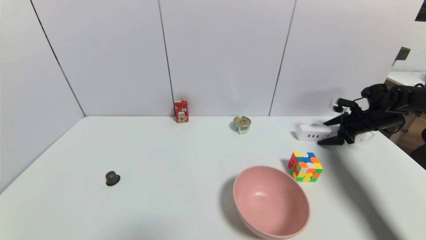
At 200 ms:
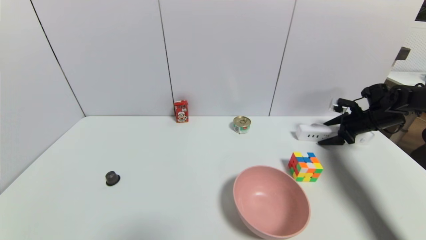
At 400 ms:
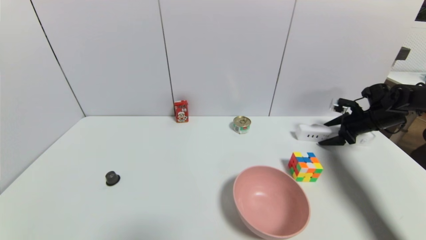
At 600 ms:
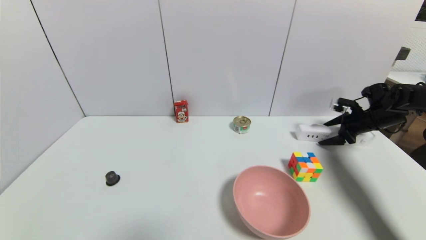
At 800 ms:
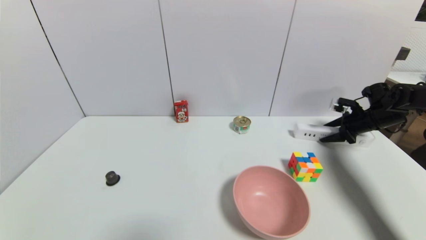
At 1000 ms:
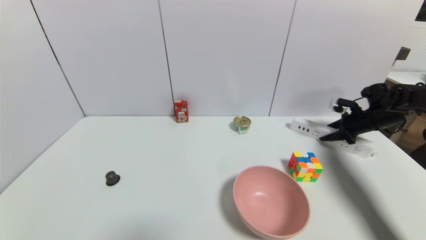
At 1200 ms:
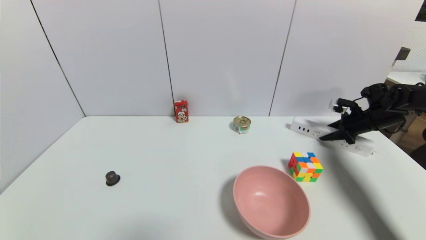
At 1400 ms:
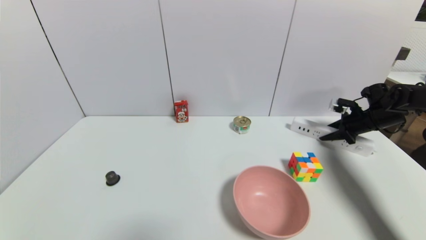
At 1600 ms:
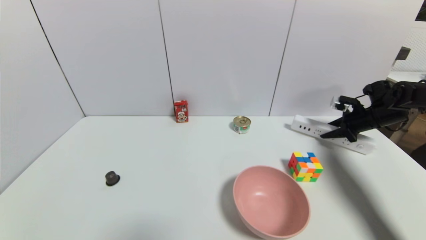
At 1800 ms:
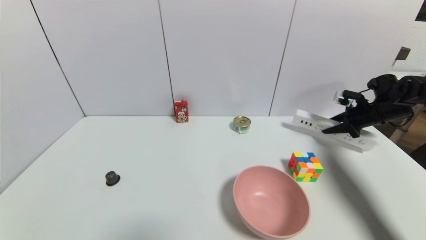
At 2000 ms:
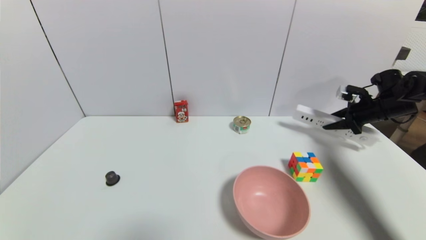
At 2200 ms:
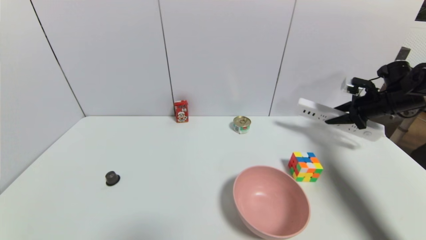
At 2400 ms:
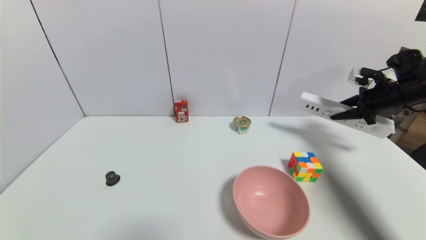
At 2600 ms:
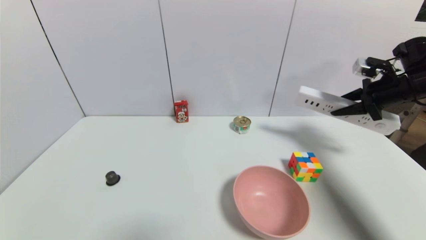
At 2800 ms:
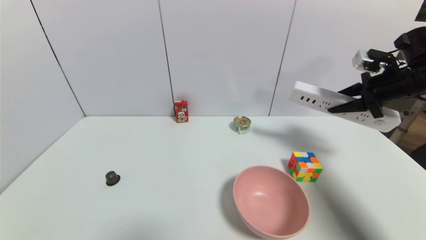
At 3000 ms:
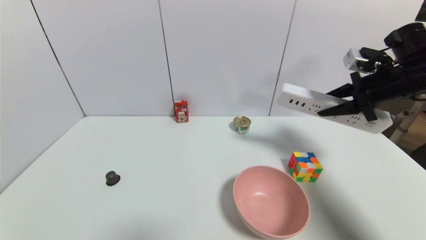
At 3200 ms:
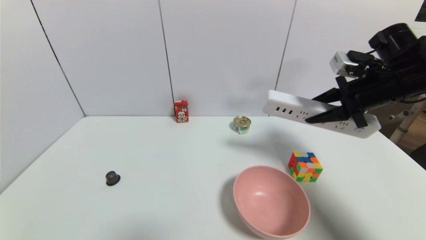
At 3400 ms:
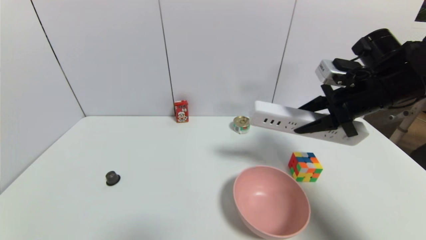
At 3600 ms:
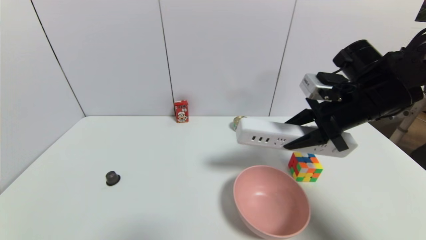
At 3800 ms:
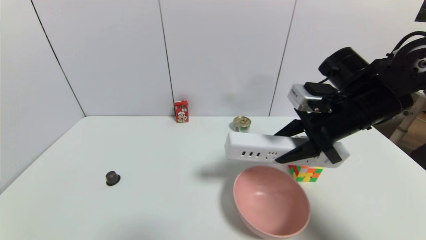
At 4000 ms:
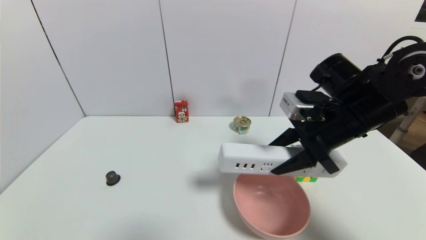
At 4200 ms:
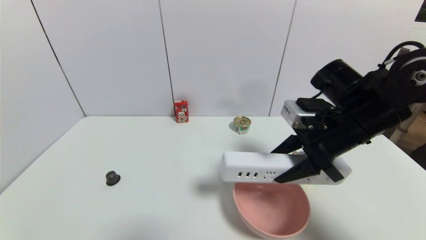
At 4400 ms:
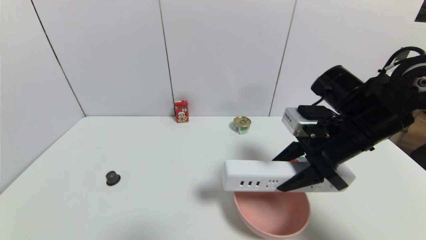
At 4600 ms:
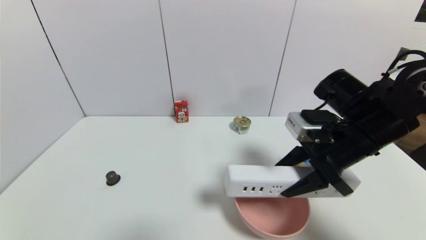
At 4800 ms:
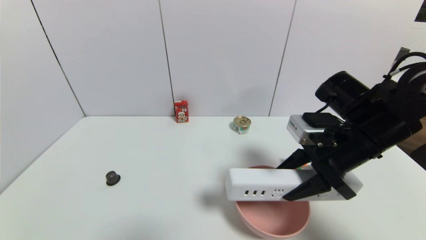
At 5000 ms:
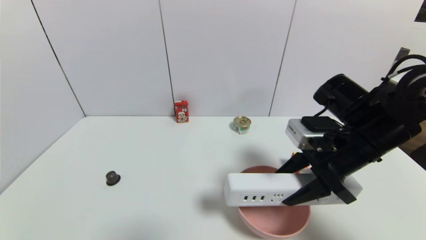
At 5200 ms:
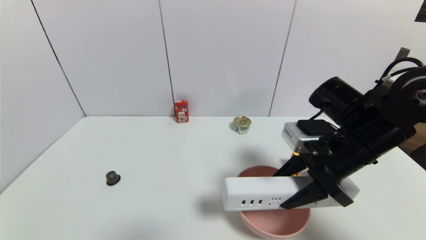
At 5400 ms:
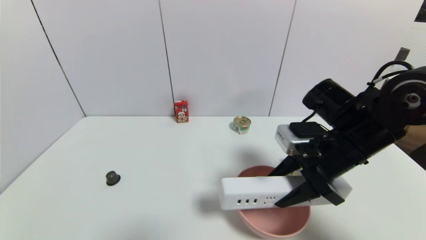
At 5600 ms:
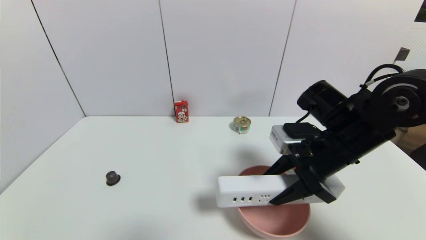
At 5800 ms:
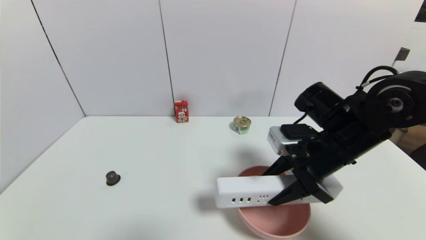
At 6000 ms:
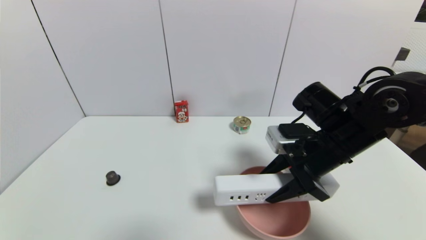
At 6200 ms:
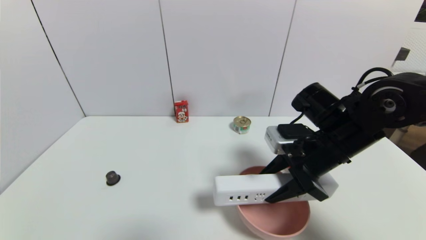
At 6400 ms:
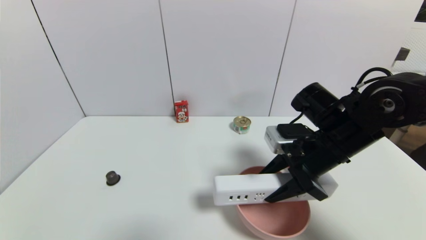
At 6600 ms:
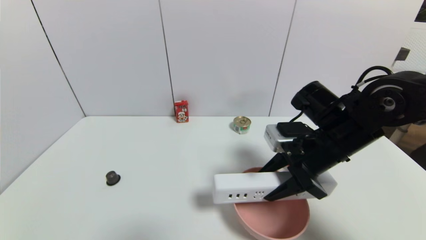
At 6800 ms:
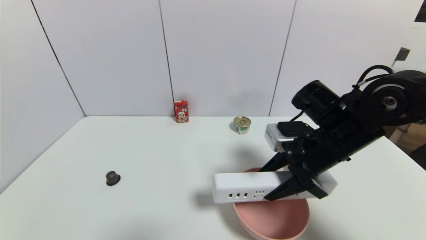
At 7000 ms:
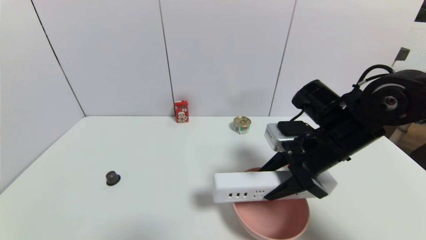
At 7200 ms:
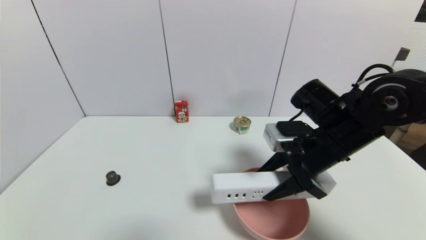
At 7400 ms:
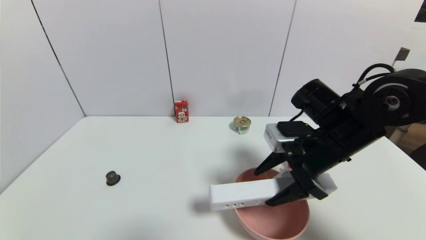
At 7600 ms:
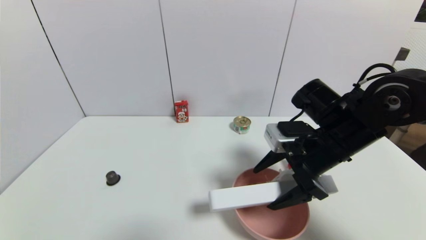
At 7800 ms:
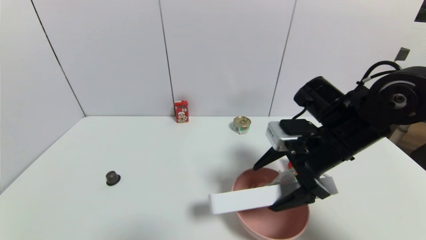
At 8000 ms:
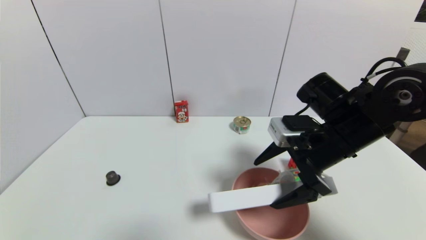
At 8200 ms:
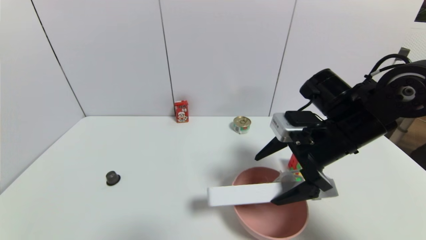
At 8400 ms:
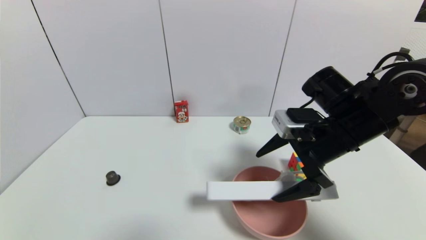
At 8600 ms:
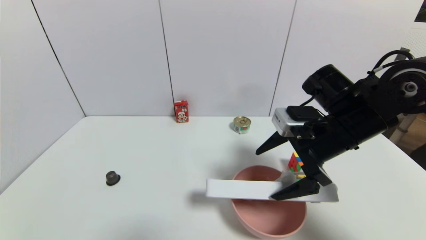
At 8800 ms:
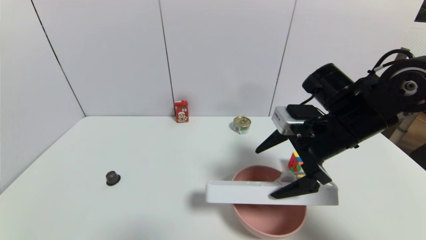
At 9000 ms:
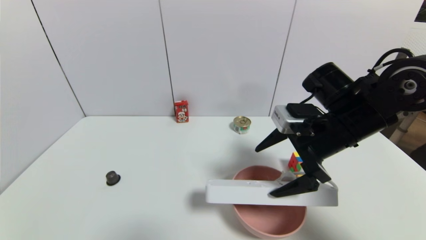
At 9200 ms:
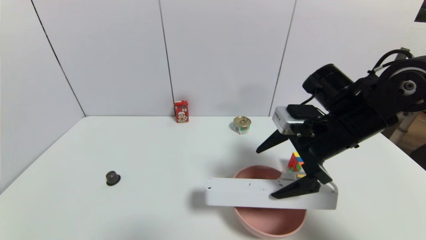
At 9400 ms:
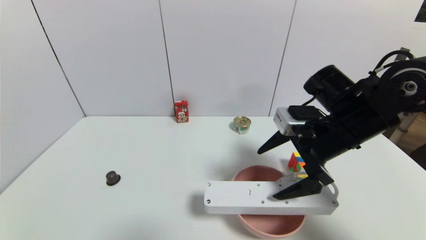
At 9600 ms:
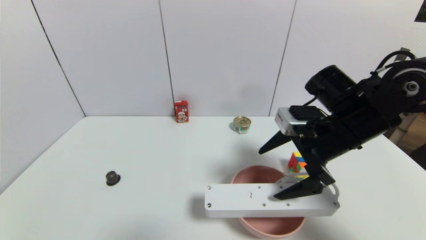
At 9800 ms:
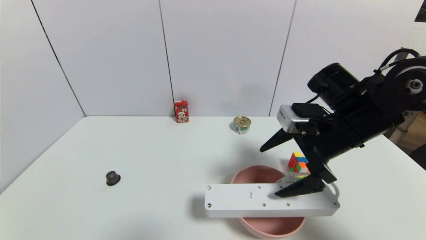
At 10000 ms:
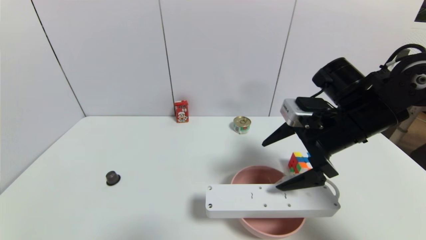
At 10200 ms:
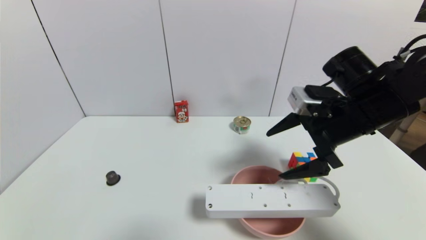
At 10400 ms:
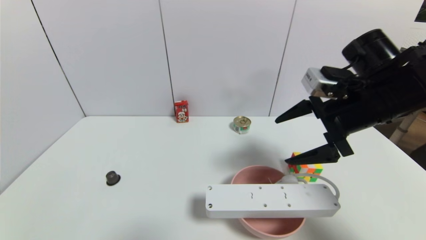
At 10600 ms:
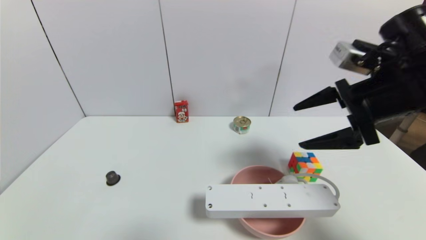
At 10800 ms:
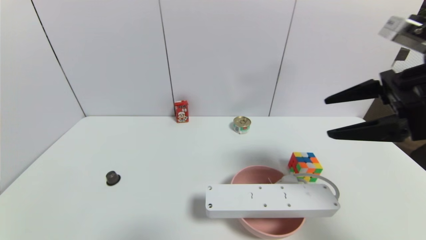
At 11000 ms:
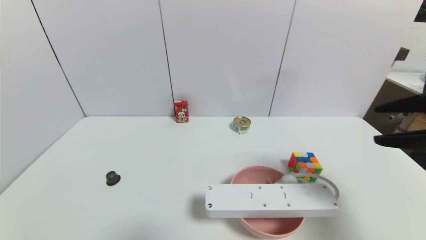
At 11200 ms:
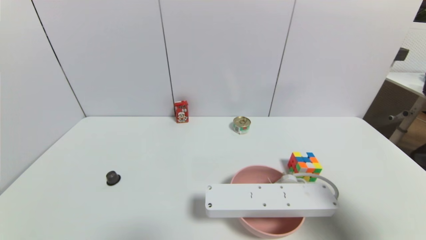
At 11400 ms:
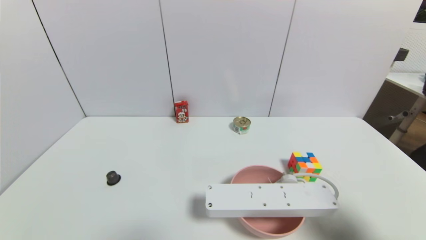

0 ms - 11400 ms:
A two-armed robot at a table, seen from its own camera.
Task of the whole recording: use a gripper to pick the target object and place on the pink bowl.
Step, 1400 ms - 7800 ms: Place the plugboard on the pink bowl with the right gripper.
0 ms - 1400 ms: The right gripper closes.
1400 ms - 2800 ms: The right gripper shifts some 20 cm upward, backward and to the left.
2800 ms - 4200 ms: The right gripper travels to the left and backward by approximately 20 cm.
4200 ms - 5600 ms: The grippers move only a little.
5600 ms - 7200 ms: The two grippers keep their place.
7200 ms - 8600 ms: The right gripper opens its fingers.
8600 ms - 10000 ms: There are only small adjustments of the grippers.
10000 ms - 11400 ms: The right gripper goes approximately 25 cm backward and to the right.

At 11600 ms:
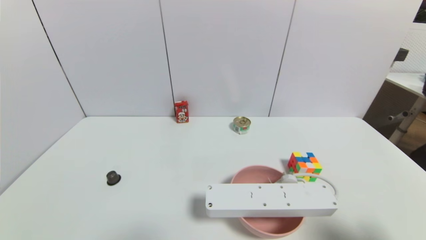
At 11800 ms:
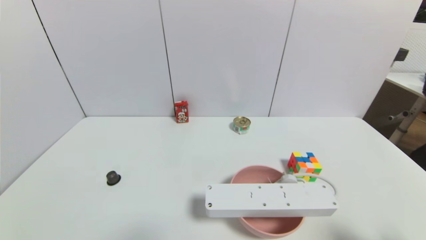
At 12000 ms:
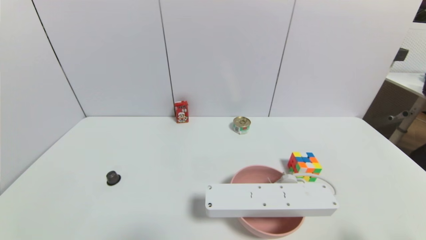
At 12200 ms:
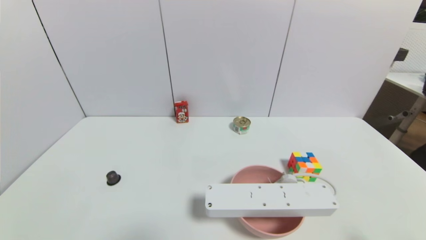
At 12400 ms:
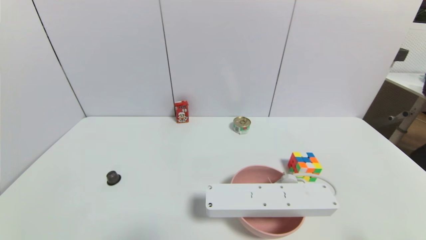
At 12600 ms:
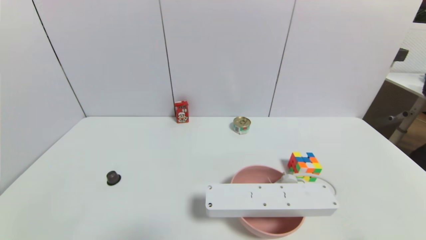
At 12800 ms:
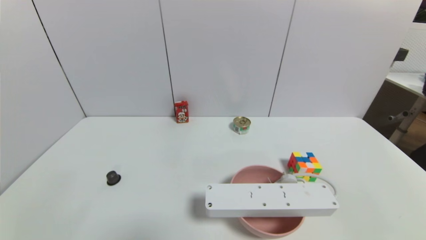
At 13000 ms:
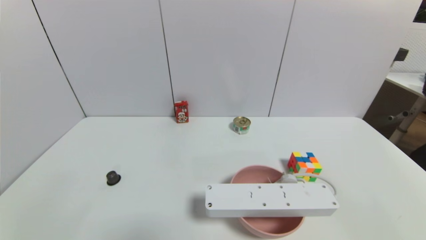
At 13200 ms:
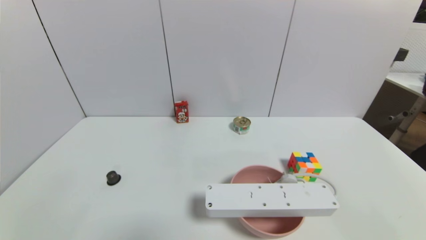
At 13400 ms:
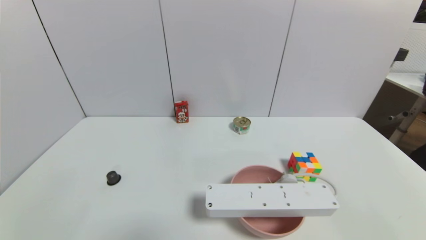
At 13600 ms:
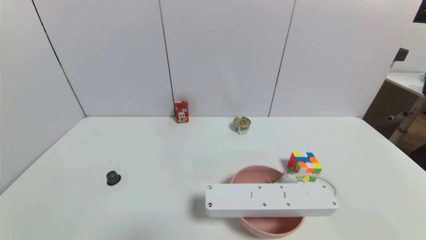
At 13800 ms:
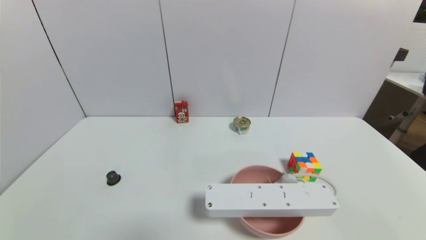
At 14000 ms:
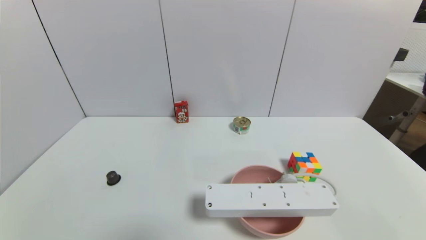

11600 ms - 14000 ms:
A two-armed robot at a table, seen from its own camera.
Task of the whole recording: use a gripper to pick the target object and place on the pink bowl.
11600 ms - 12800 ms: The right gripper goes approximately 15 cm downward.
